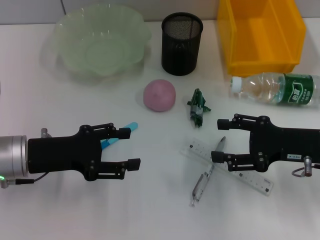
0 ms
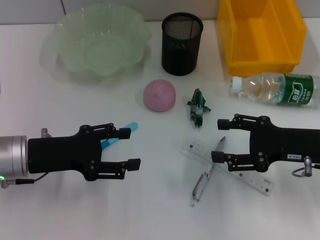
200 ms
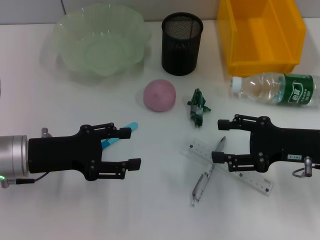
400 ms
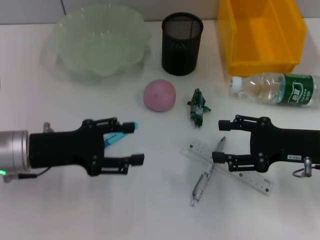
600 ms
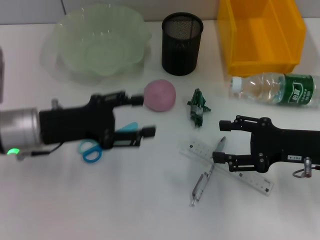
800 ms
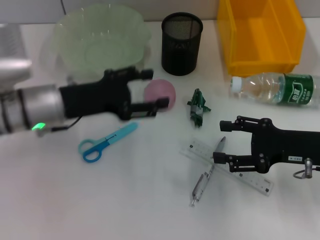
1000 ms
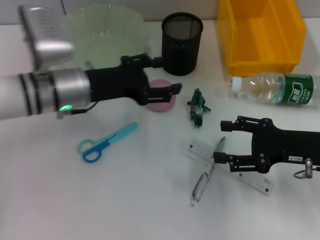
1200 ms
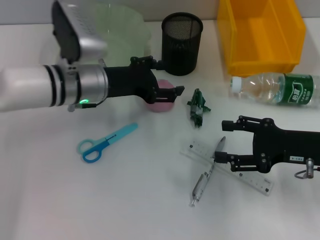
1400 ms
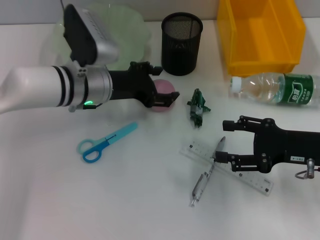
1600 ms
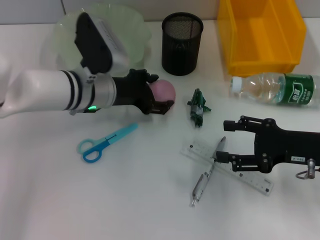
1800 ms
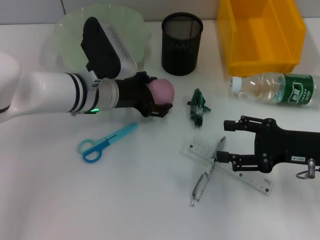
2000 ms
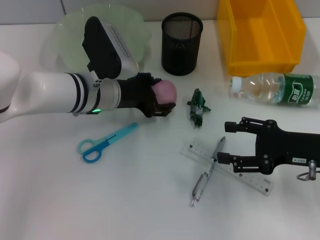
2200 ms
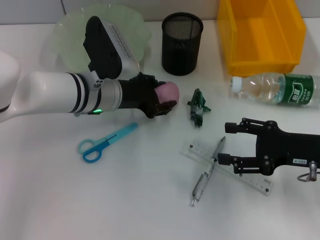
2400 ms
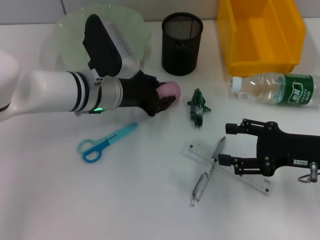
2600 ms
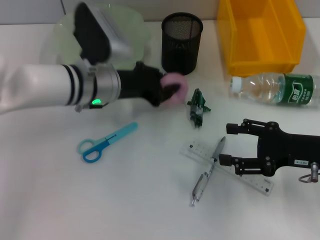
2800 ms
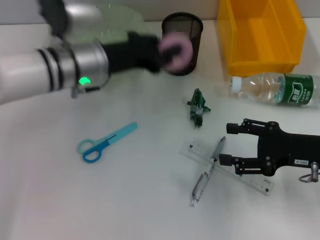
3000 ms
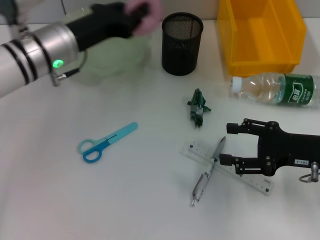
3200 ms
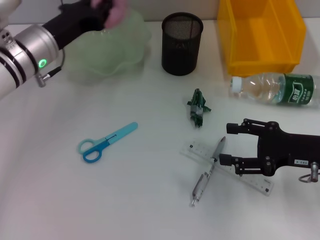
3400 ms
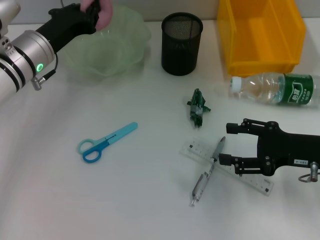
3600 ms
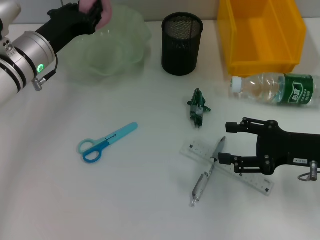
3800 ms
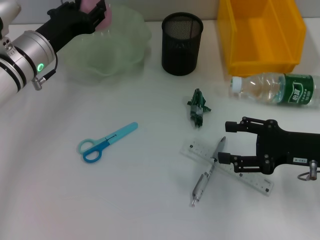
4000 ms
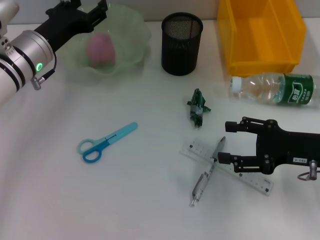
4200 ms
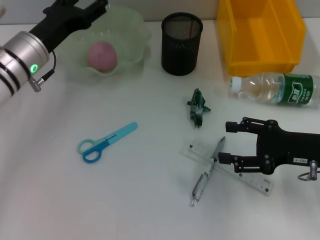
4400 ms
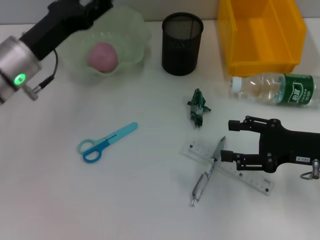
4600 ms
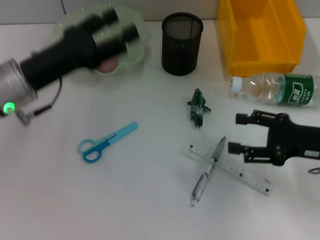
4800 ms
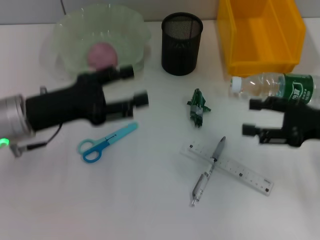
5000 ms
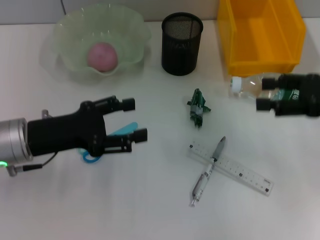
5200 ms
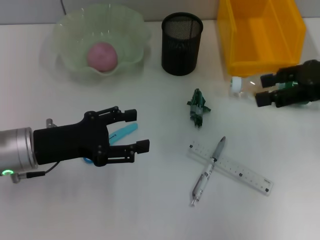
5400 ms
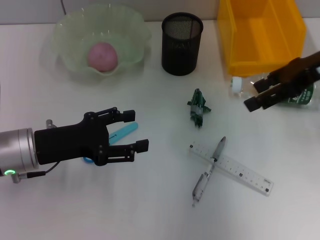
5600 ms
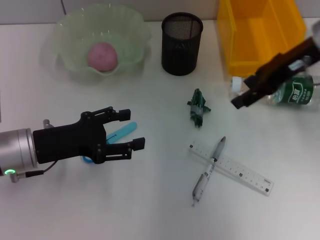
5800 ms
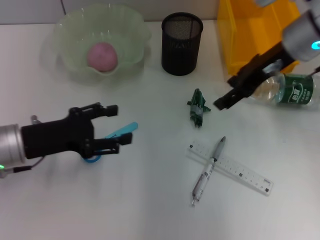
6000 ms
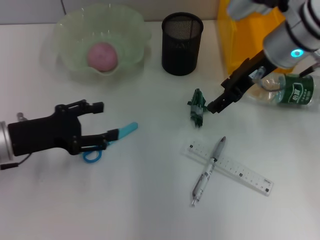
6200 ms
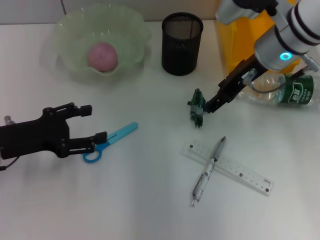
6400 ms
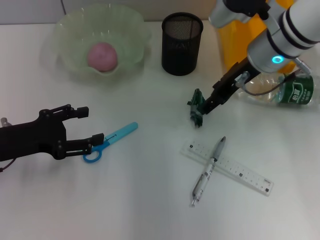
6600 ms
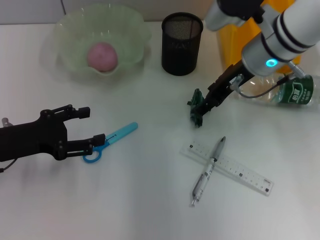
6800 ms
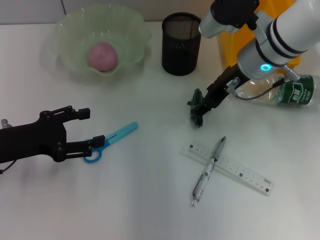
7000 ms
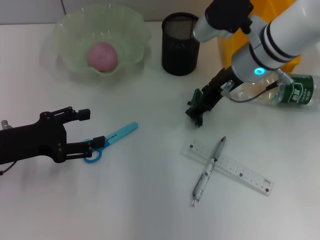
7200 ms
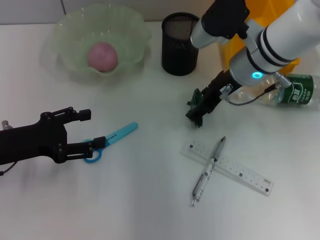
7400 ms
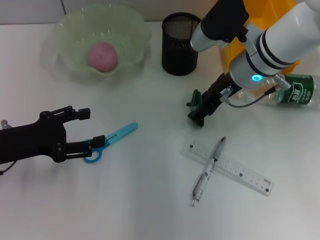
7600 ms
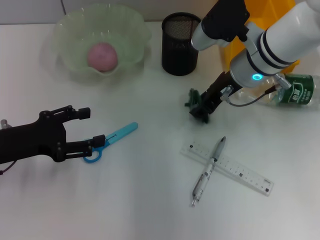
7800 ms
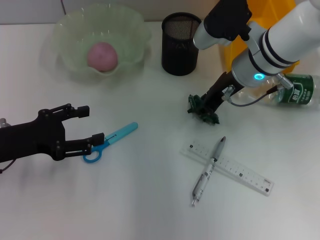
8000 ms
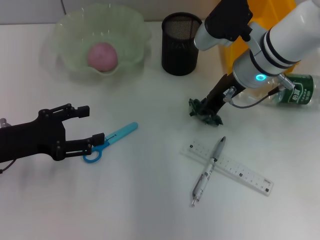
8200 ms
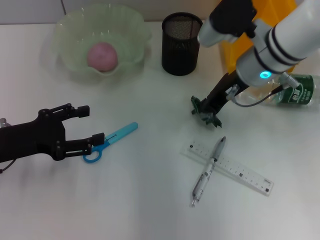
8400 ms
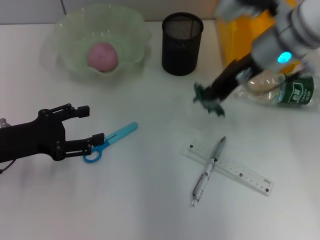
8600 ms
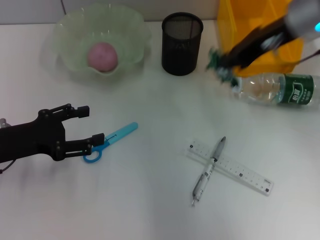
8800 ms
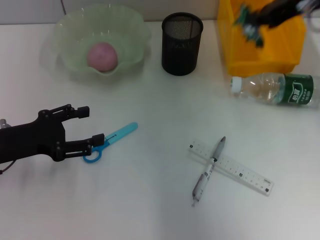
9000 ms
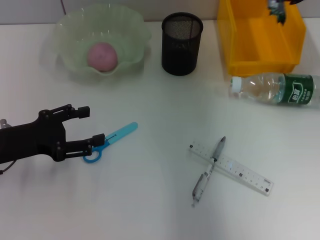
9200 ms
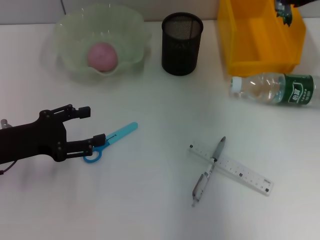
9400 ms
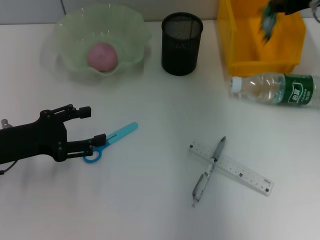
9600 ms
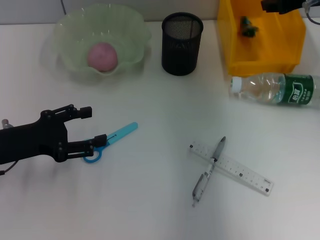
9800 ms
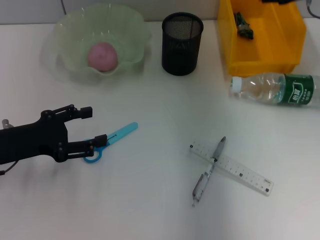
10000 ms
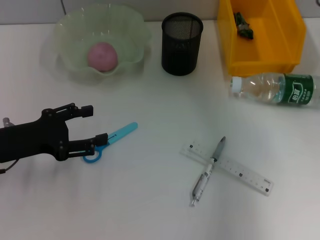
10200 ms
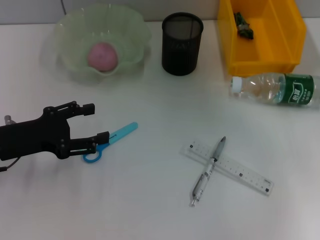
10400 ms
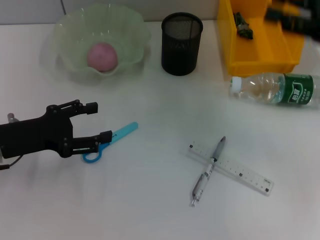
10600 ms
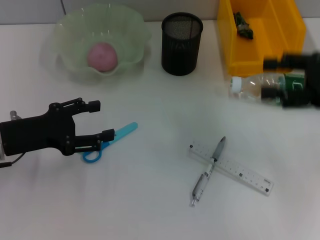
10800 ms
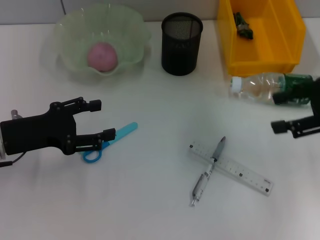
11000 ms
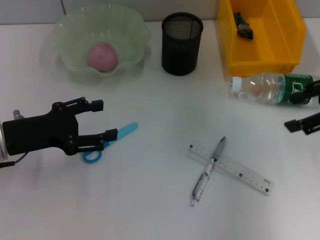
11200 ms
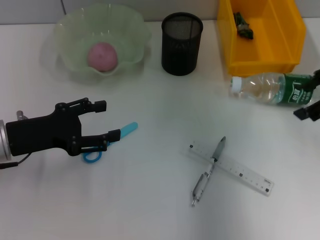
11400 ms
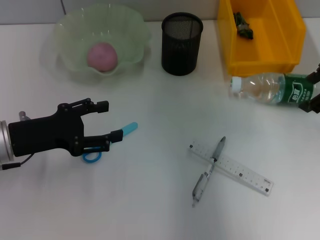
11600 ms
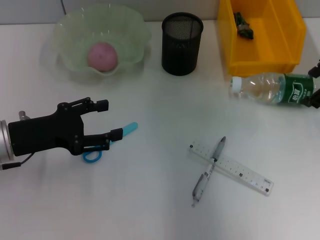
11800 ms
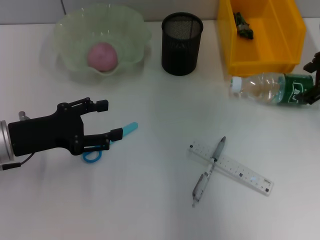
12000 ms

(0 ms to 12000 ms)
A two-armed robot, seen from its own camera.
Step, 0 ms - 2200 ms: Grab the peach with the left hand.
Step, 2400 ms - 4600 ms: Place the peach into the fruit bowl with the left hand.
Step, 4800 ms - 7800 ms: Grab the plastic with the right hand.
Step, 8000 ms - 10000 ms: Place the plastic into the trash can with the right hand.
0 ms - 1600 ms: The left gripper goes roughly 15 cm forward and to the right.
1600 ms - 3000 ms: The left gripper closes.
3000 ms - 4400 ms: The left gripper heads to the left, covering roughly 5 cm, and opens.
4400 ms - 6000 ms: The left gripper is displaced backward by roughly 10 cm, while the right gripper shifts roughly 20 cm forward, upward and to the left.
6000 ms - 7600 ms: The right gripper travels downward and to the left by some 10 cm.
7600 ms - 9000 ms: The right gripper heads upward and to the right, covering about 15 cm, and closes its fingers.
9000 ms - 10400 ms: The right gripper goes roughly 10 cm to the right and downward, and opens up.

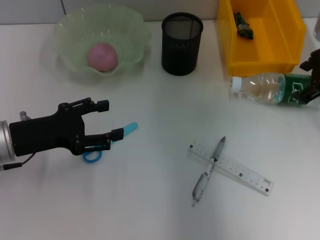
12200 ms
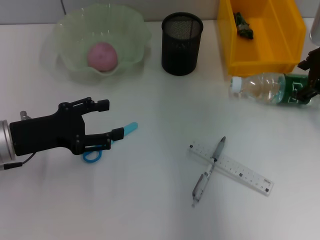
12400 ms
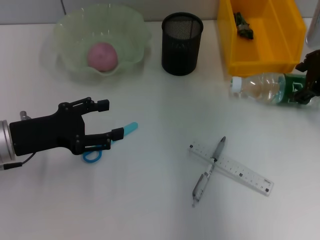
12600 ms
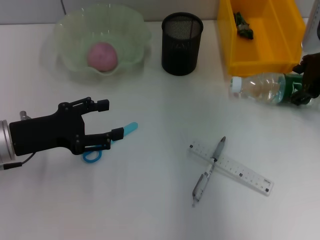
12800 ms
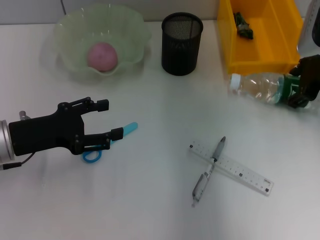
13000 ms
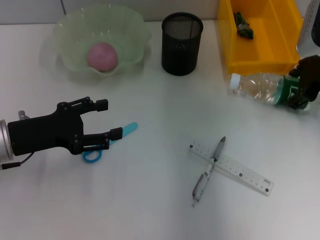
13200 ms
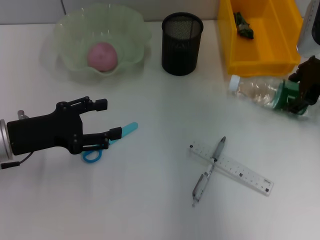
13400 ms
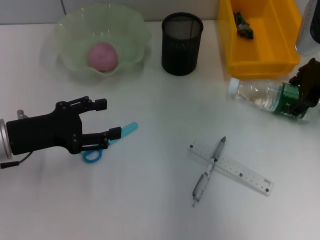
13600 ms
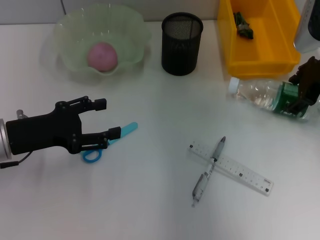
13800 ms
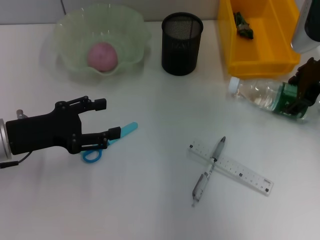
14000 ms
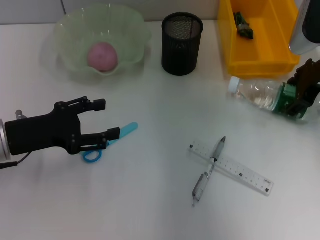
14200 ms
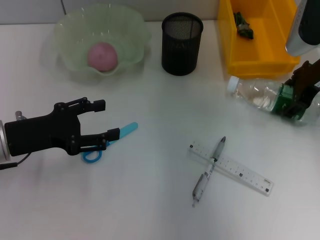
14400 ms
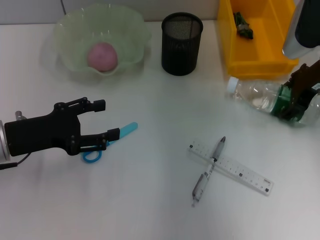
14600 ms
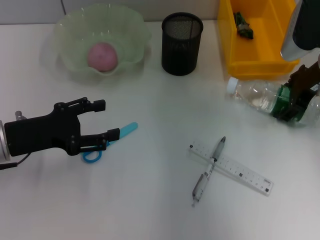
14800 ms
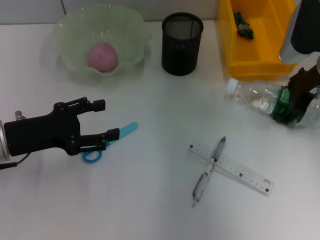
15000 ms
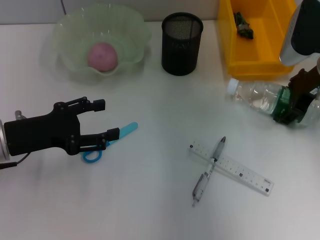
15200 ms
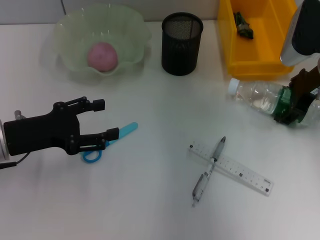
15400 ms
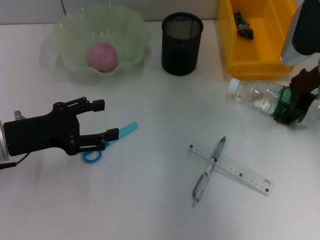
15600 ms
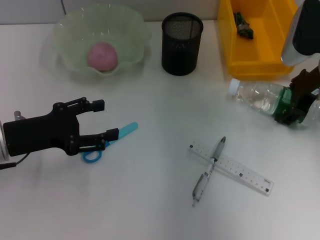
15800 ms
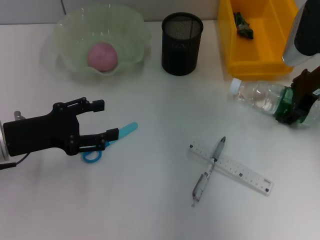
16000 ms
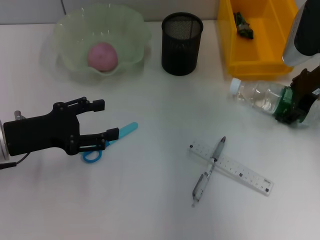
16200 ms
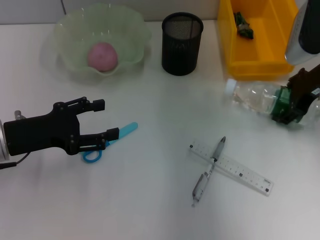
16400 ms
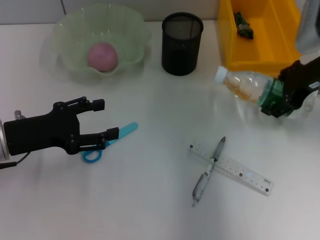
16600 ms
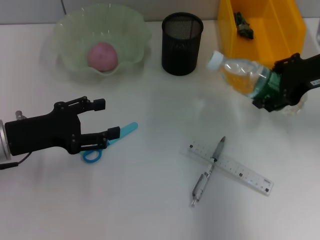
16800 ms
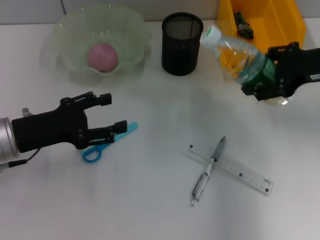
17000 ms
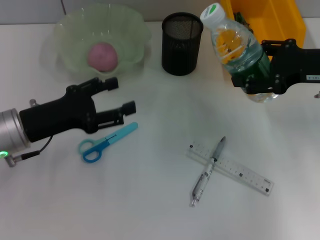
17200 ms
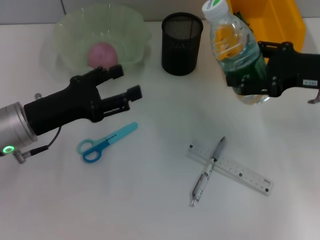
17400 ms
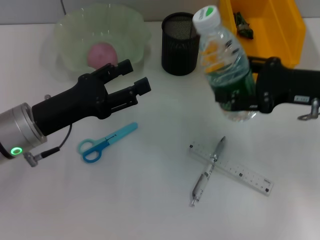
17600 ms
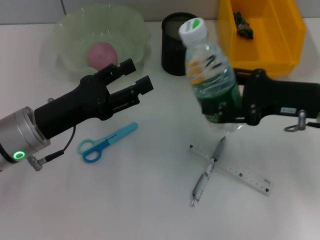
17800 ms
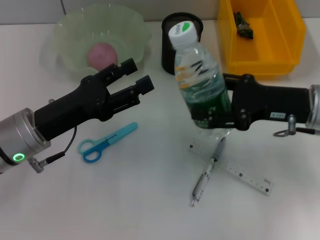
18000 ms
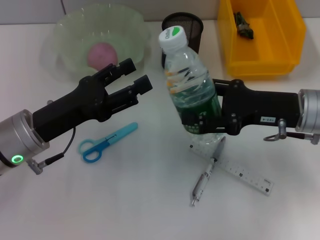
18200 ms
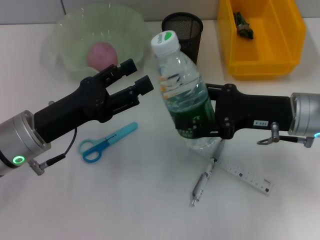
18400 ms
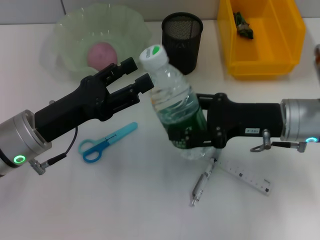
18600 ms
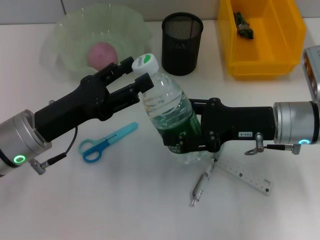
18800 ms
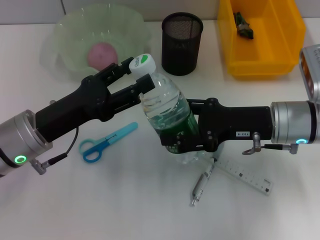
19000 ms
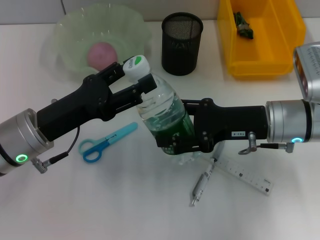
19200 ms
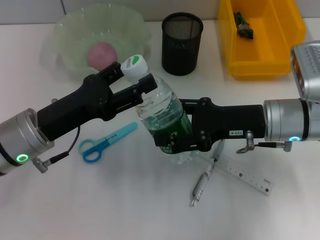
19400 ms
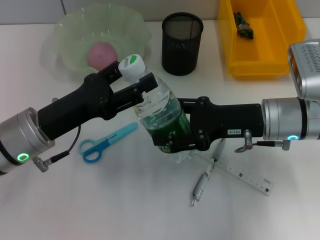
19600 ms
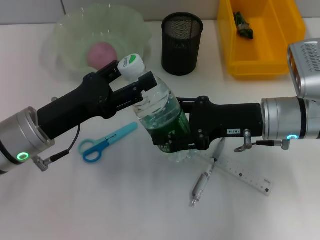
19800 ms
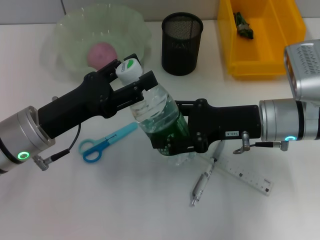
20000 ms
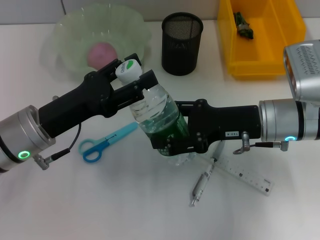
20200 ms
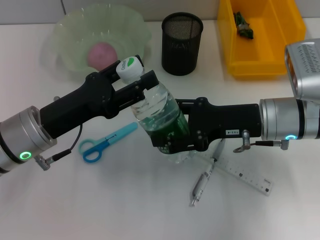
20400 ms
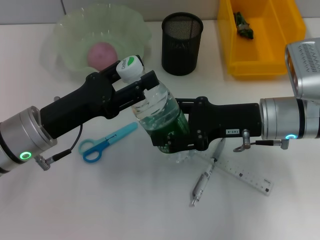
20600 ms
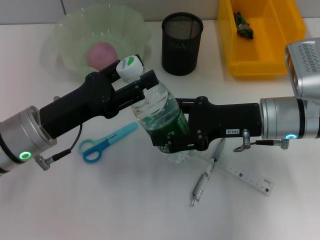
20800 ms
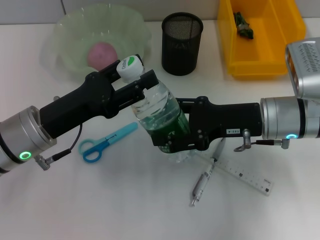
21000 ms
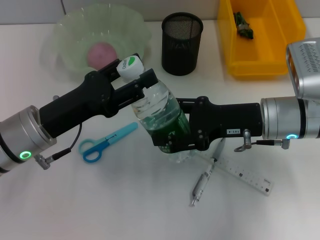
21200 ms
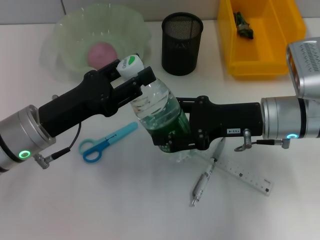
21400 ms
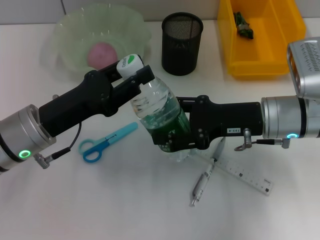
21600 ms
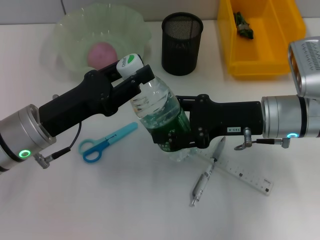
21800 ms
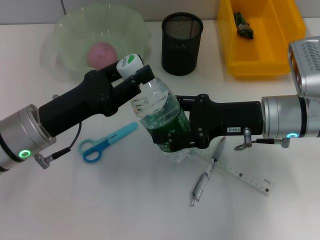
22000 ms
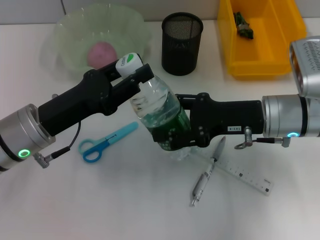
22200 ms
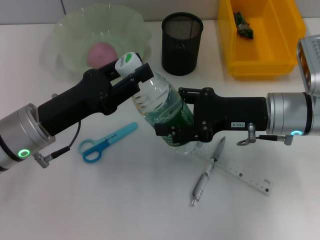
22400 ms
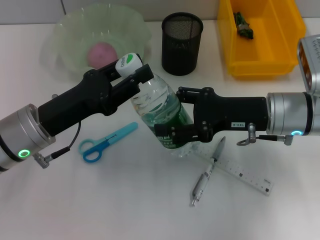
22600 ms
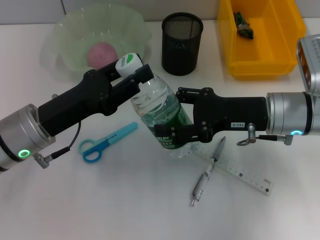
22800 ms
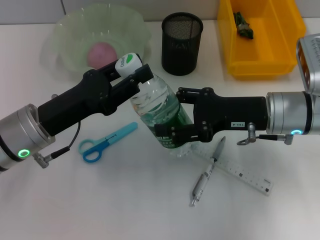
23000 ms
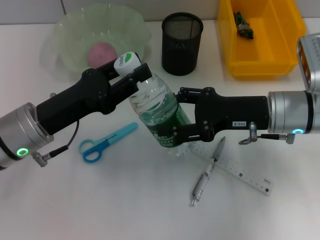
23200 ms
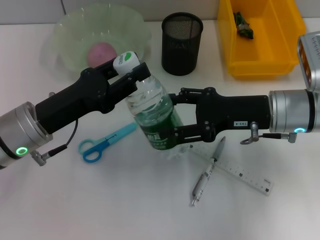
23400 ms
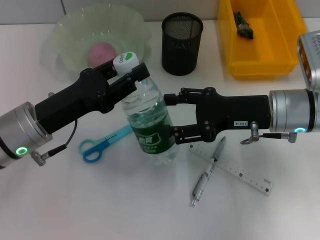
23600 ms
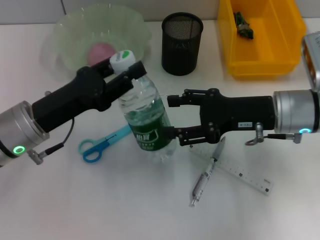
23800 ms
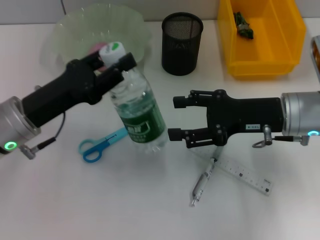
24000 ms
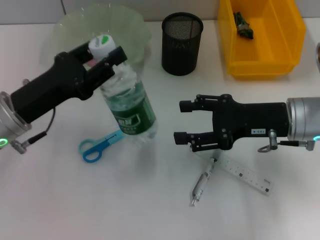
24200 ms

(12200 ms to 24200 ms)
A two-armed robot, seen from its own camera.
Step, 13800 ms - 23800 ms: Pass the water bottle from the right hand to the left hand.
12200 ms - 16600 ms: The grippers make only small movements.
16600 ms - 18200 ms: The left gripper heads to the right, covering roughly 5 cm; the right gripper goes approximately 10 cm backward and downward.
18200 ms - 19800 ms: The grippers stay close to where they were, moving slightly.
19800 ms - 21200 ms: Neither gripper changes place.
21200 ms - 22600 ms: The left gripper closes.
